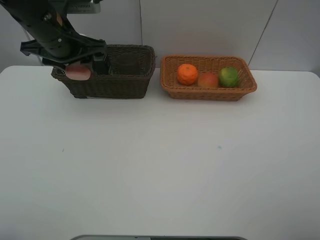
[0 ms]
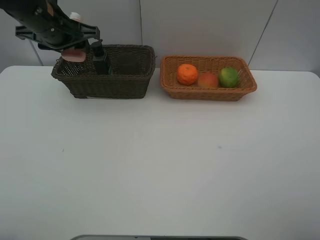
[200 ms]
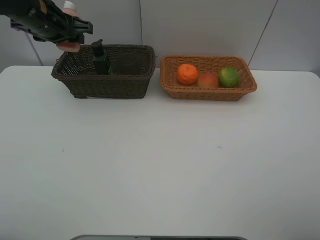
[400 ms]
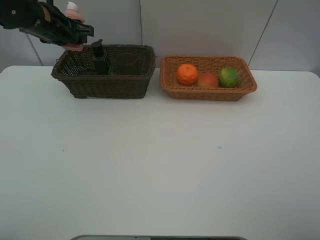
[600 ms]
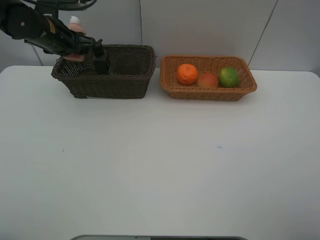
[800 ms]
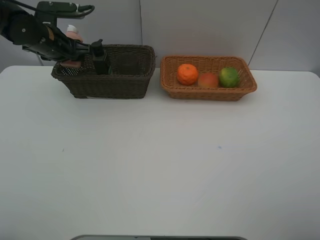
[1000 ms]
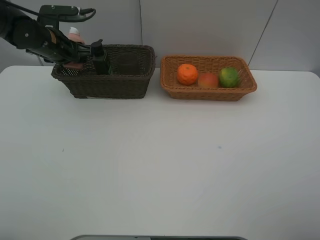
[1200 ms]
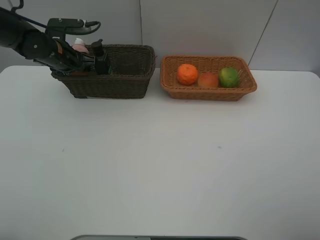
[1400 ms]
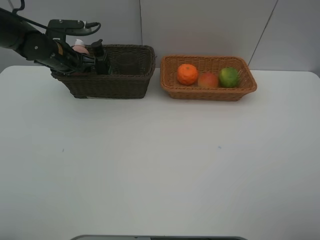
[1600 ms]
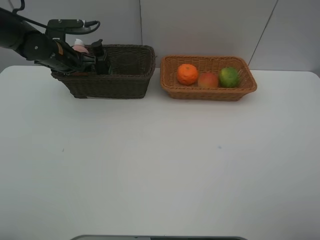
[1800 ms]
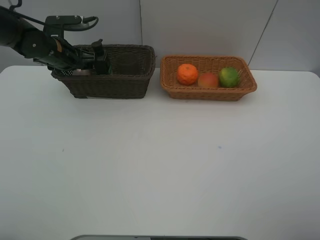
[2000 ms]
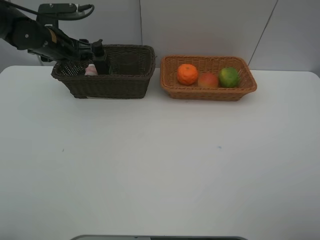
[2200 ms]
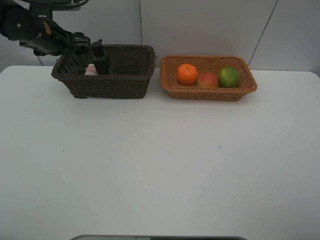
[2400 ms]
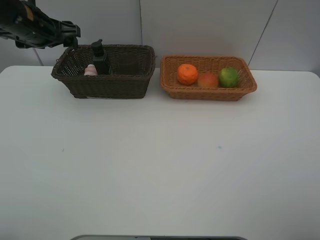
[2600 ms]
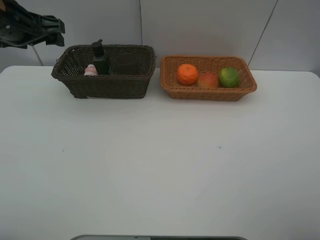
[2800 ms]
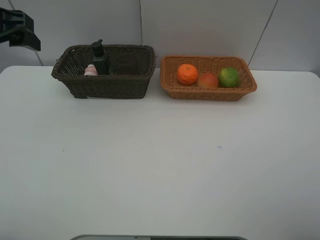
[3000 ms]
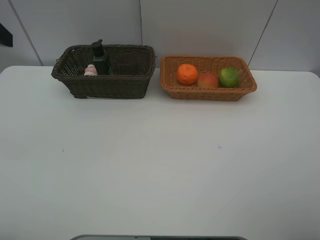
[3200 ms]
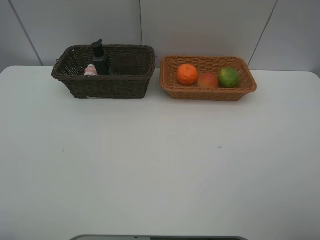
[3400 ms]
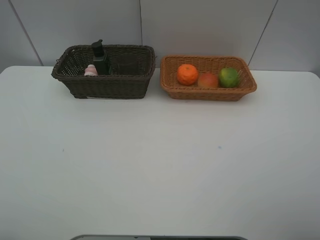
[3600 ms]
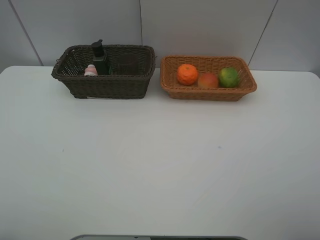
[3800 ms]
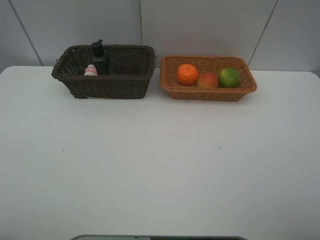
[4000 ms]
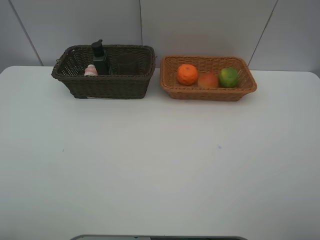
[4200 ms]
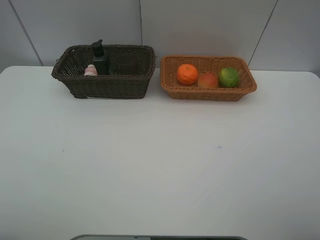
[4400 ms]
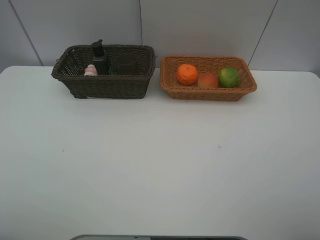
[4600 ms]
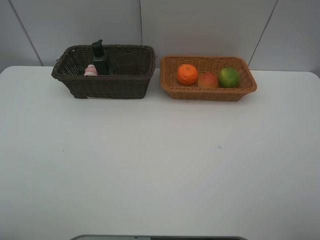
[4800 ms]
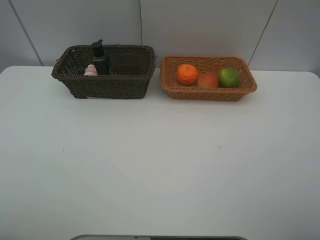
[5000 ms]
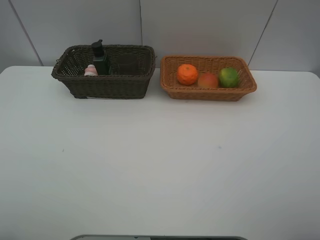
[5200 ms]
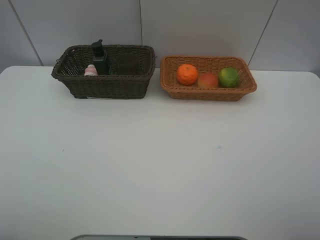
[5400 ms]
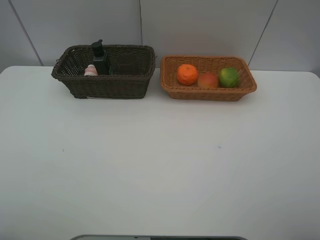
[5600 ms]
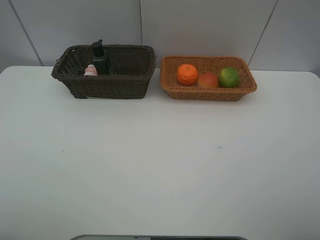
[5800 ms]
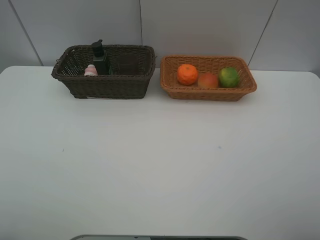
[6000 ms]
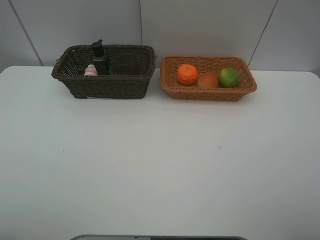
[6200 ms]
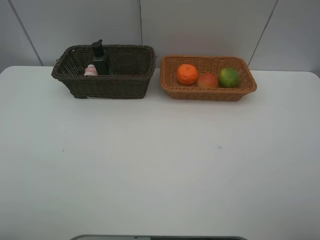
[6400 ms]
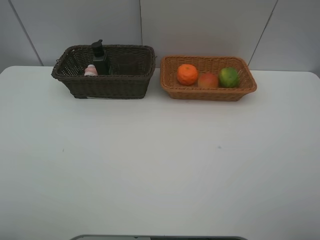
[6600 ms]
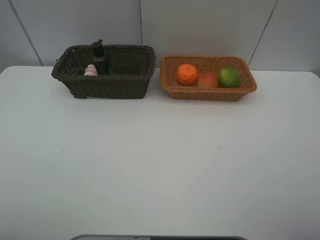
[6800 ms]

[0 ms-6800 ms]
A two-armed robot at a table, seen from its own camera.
Task of the whole recording: place multiple objects separately in different baskets.
0 ms to 1400 ms: The left gripper goes some 15 cm downward, forward and to the left.
1400 ms to 2800 ms: The left gripper heads upward and backward, covering approximately 15 cm.
2800 ms to 4000 ms: The left gripper shifts some 30 cm backward.
5400 ms to 6800 ms: Both grippers stay about where they are.
